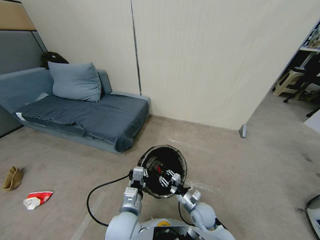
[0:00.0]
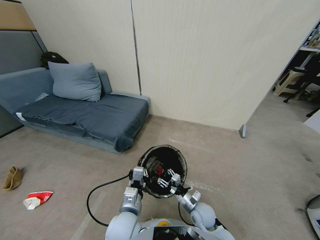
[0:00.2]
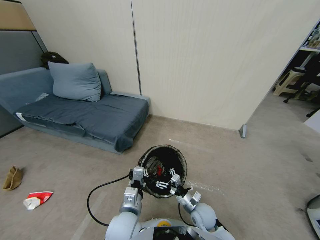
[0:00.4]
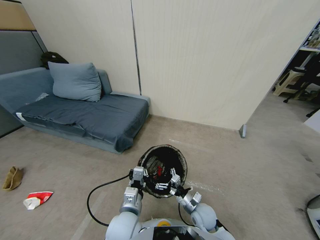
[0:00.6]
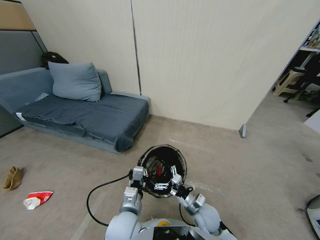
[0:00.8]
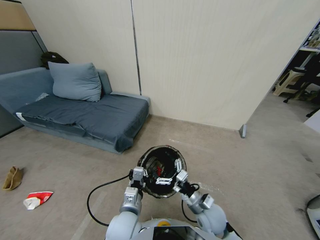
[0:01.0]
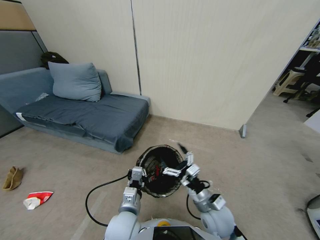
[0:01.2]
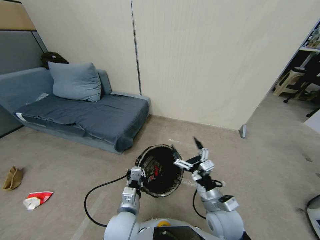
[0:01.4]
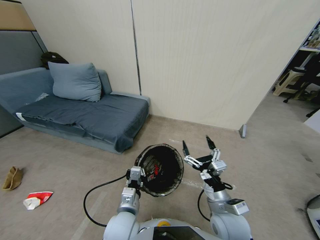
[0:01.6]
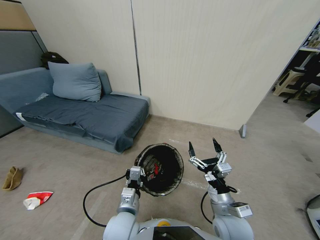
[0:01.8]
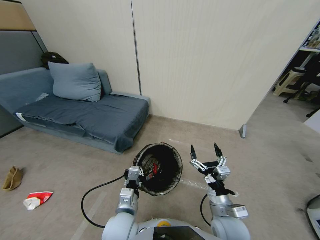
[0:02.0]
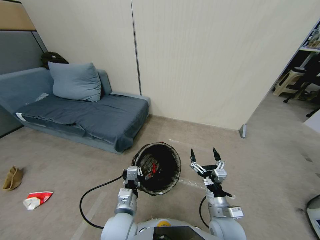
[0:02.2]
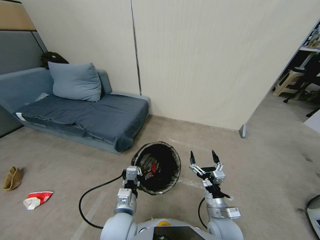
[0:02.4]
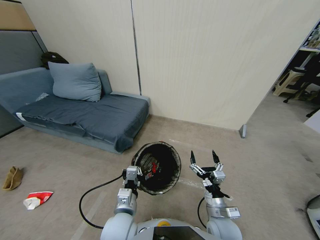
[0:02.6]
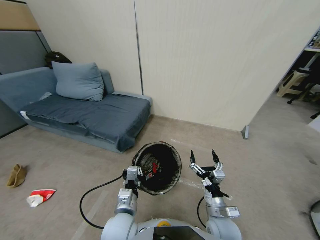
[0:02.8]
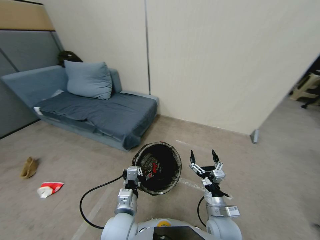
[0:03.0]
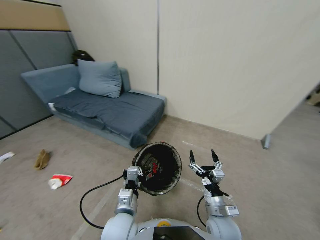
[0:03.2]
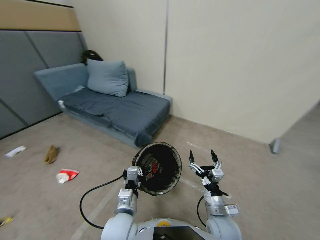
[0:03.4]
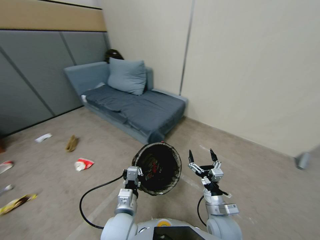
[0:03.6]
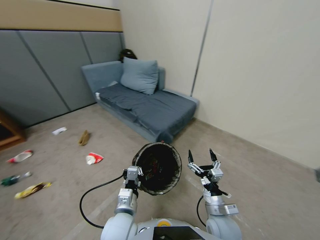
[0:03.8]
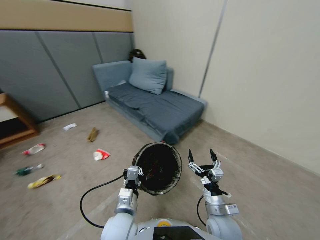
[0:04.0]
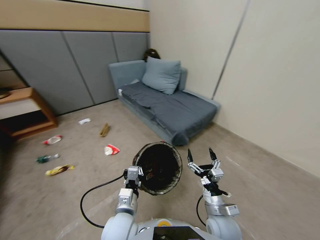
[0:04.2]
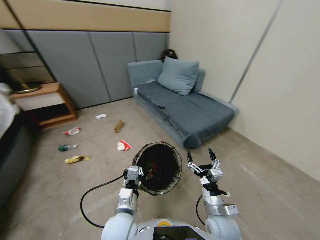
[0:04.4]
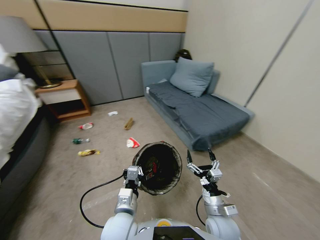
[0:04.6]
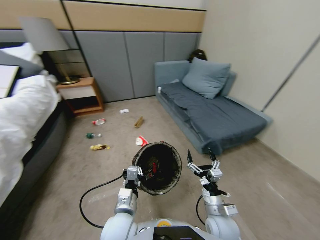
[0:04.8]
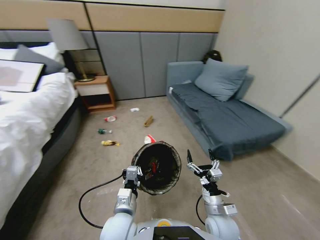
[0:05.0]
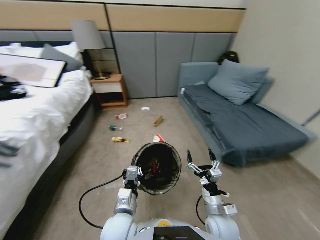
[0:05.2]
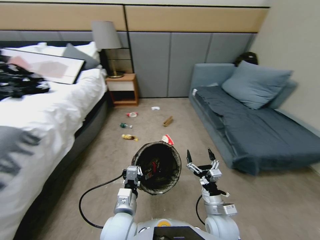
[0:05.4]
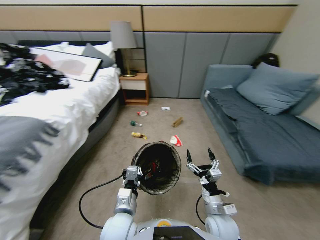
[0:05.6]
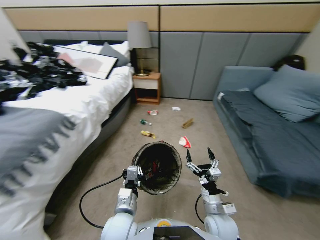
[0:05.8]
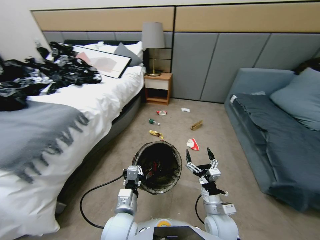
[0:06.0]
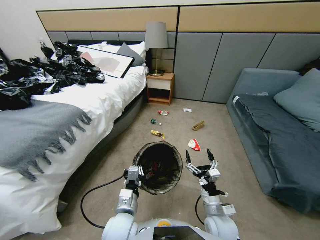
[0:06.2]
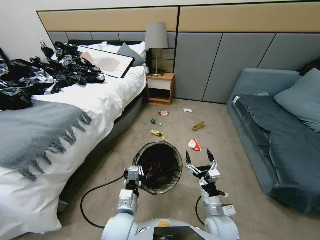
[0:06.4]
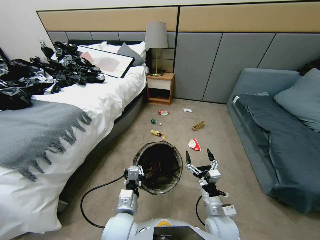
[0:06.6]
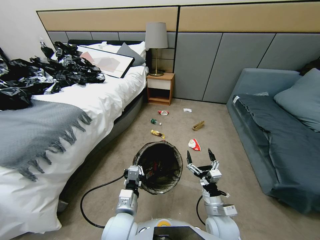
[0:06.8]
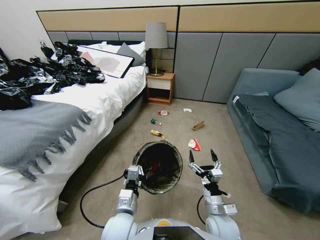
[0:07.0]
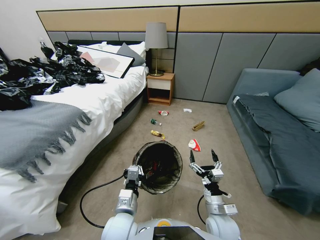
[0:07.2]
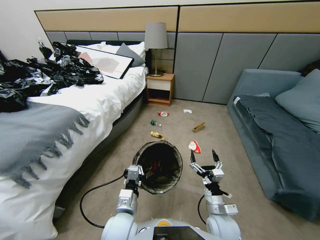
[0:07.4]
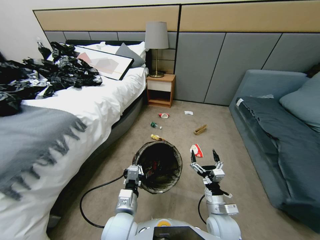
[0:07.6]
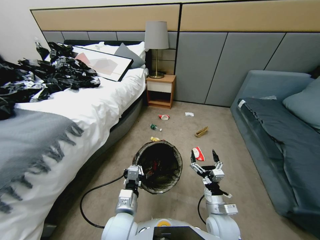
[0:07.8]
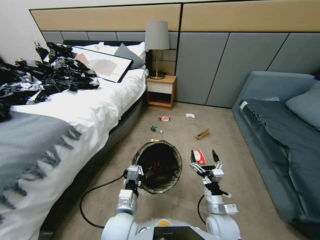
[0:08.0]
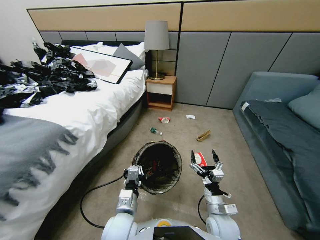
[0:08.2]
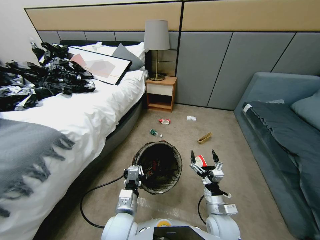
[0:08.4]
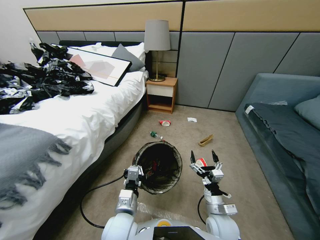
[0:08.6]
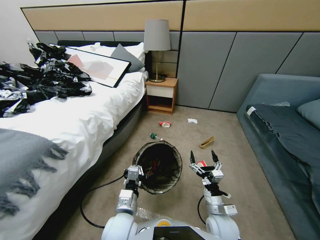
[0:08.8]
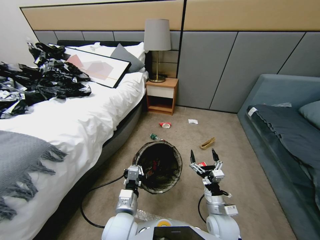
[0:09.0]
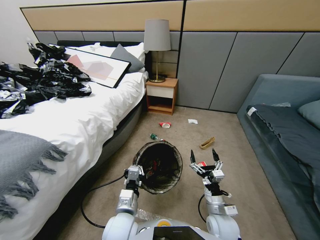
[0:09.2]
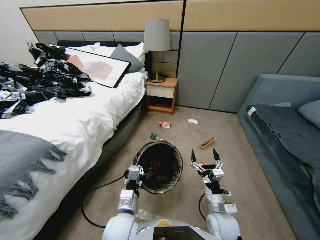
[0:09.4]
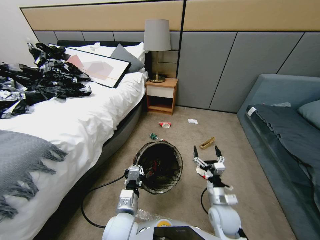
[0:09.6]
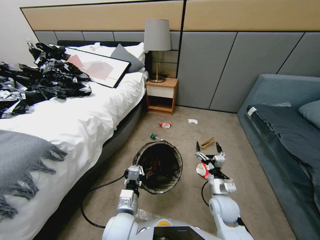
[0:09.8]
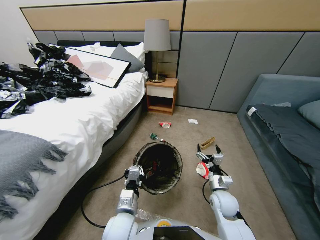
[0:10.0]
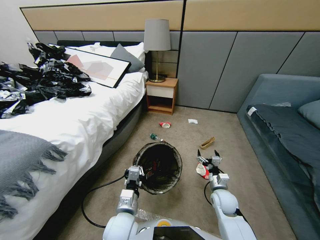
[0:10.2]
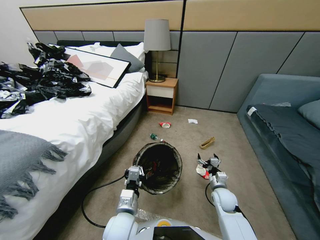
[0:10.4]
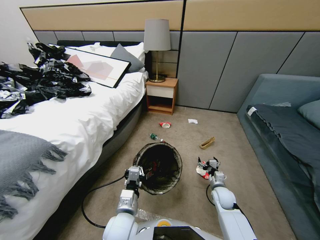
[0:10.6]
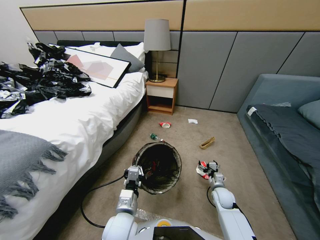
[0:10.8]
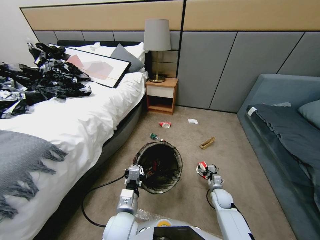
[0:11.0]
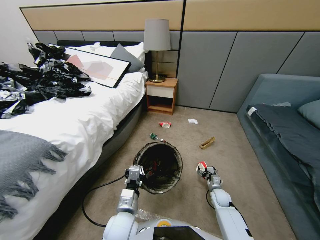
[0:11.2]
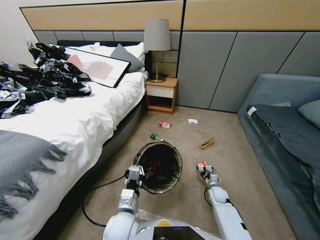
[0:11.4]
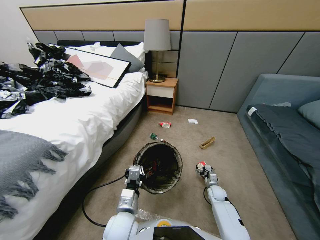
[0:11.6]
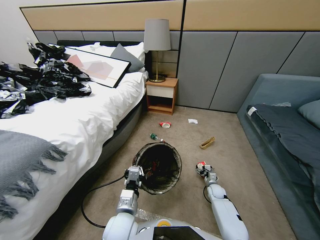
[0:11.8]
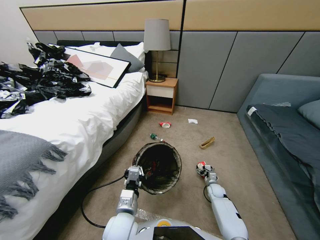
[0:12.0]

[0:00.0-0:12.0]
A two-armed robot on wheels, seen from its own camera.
Task of the whole recording: Pick up the trash bin, then pick up the garbage from the floor and place it into the trash bin.
0:00.0 to 0:01.6: The right gripper shifts approximately 15 cm upward, and opens up.
0:01.6 to 0:03.0: The right gripper shifts some 5 cm downward.
0:09.0 to 0:10.4: The right gripper shifts about 15 cm forward, to the right and downward.
0:10.4 to 0:12.0: The right gripper heads downward and forward, covering about 15 cm.

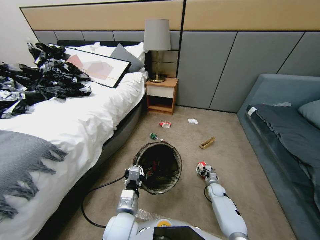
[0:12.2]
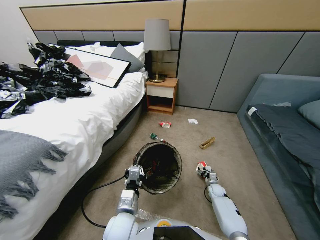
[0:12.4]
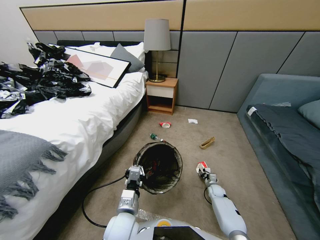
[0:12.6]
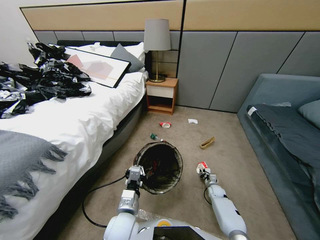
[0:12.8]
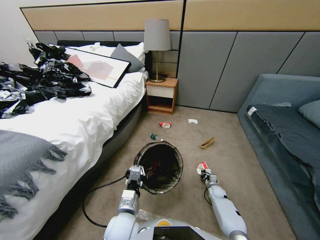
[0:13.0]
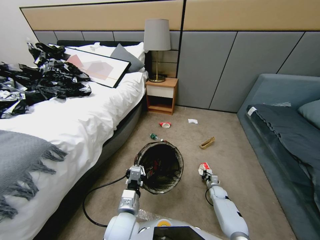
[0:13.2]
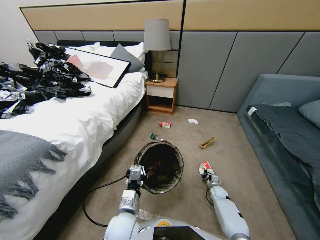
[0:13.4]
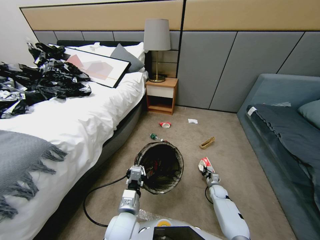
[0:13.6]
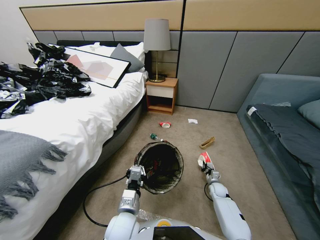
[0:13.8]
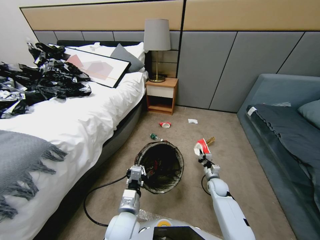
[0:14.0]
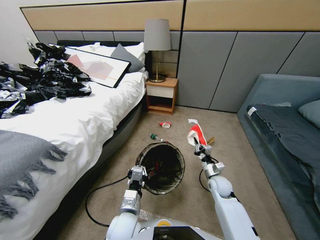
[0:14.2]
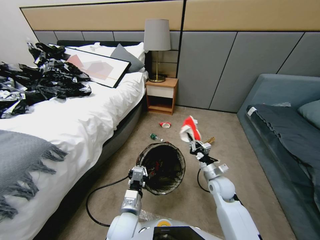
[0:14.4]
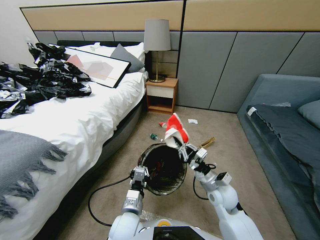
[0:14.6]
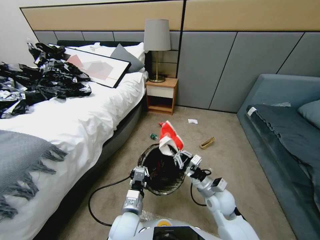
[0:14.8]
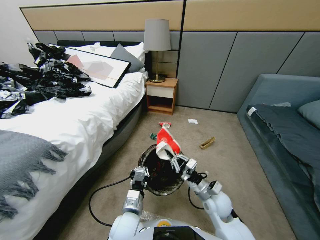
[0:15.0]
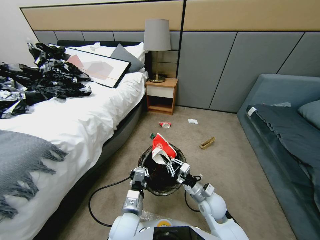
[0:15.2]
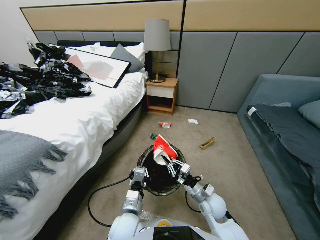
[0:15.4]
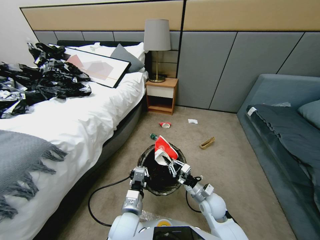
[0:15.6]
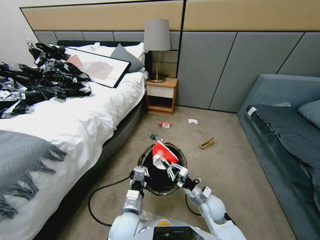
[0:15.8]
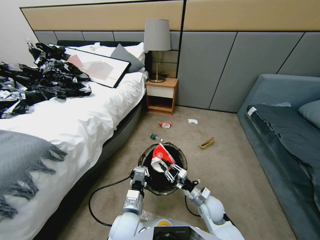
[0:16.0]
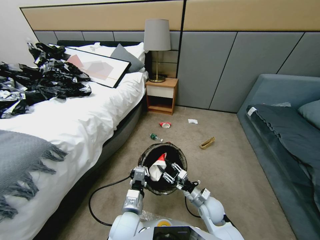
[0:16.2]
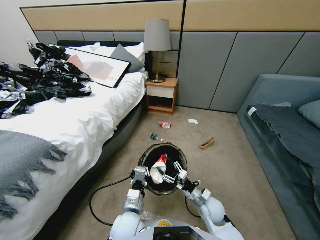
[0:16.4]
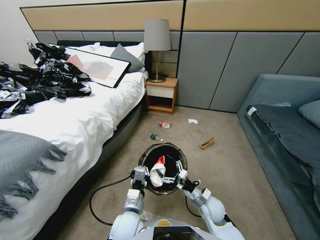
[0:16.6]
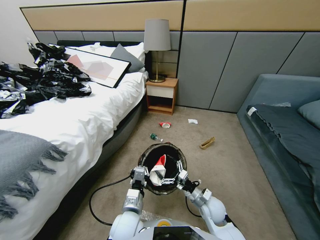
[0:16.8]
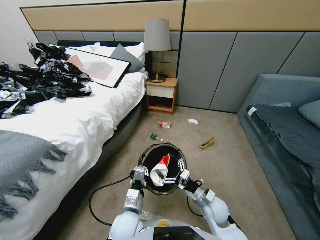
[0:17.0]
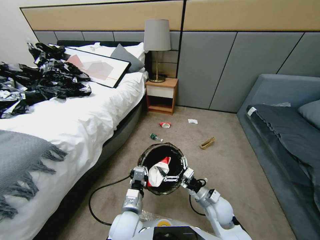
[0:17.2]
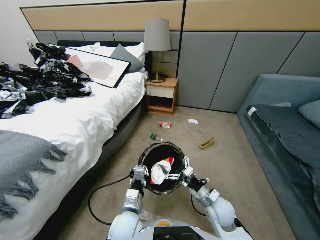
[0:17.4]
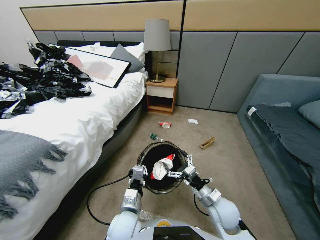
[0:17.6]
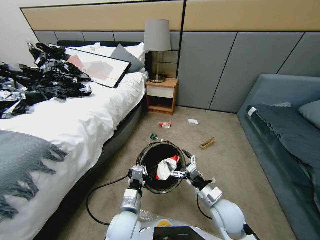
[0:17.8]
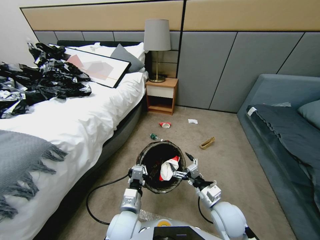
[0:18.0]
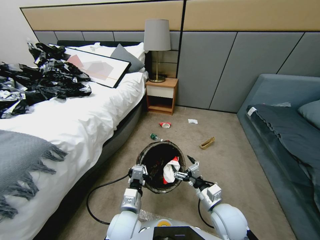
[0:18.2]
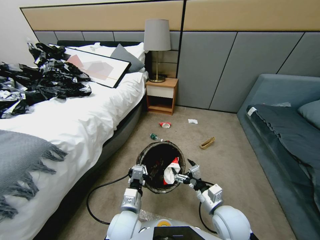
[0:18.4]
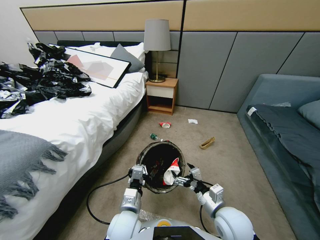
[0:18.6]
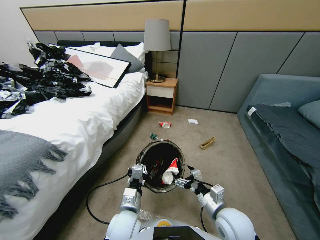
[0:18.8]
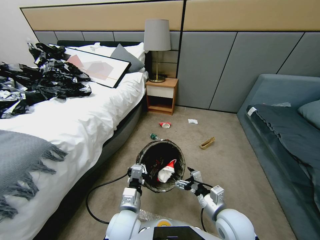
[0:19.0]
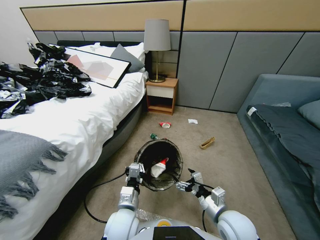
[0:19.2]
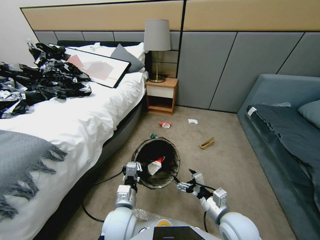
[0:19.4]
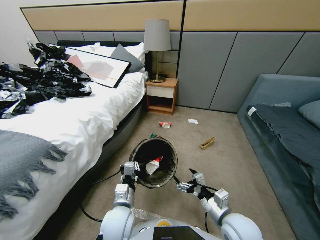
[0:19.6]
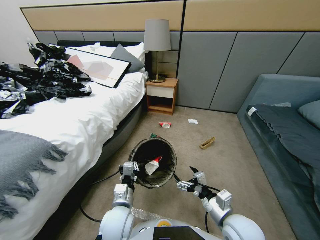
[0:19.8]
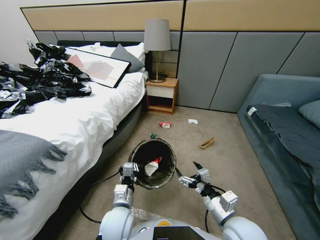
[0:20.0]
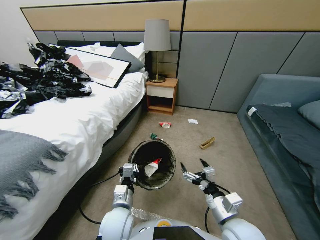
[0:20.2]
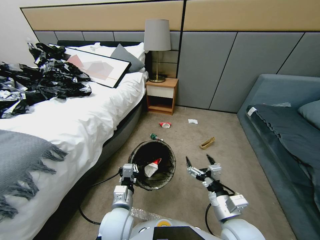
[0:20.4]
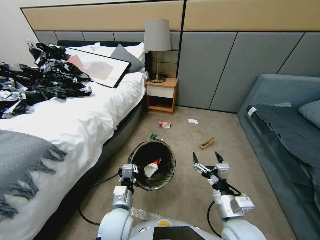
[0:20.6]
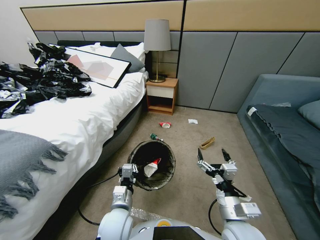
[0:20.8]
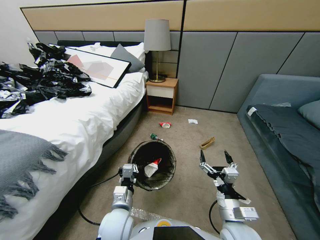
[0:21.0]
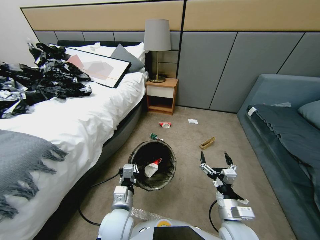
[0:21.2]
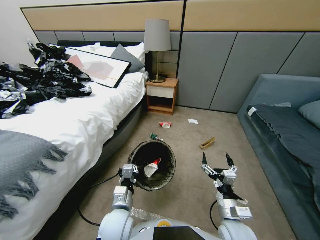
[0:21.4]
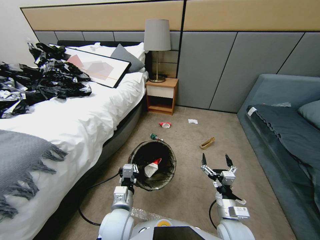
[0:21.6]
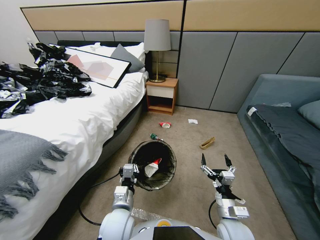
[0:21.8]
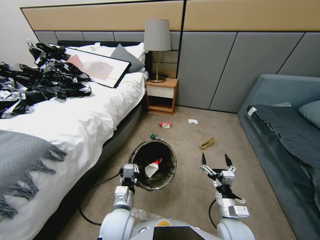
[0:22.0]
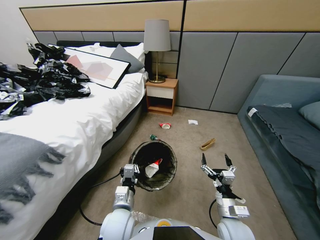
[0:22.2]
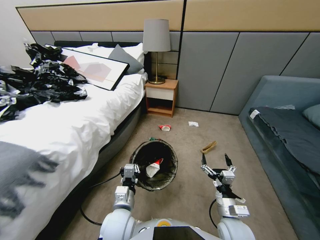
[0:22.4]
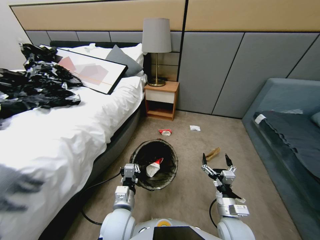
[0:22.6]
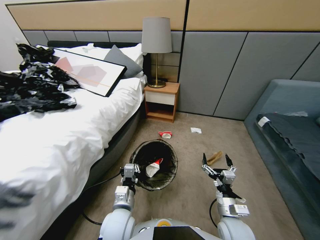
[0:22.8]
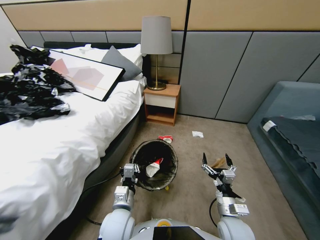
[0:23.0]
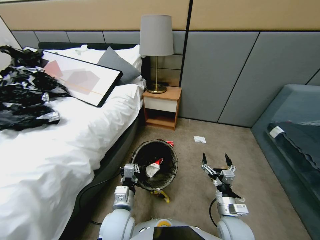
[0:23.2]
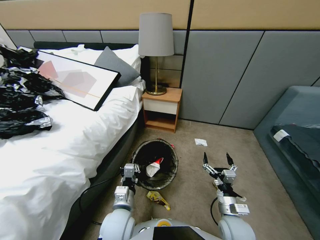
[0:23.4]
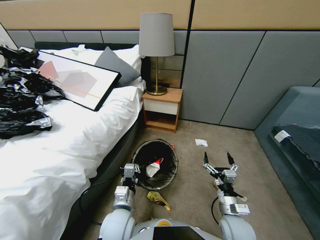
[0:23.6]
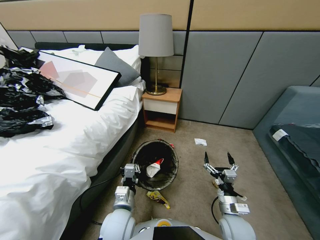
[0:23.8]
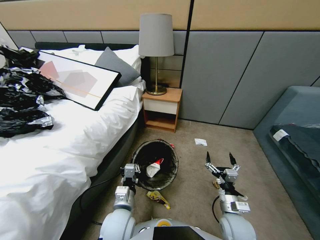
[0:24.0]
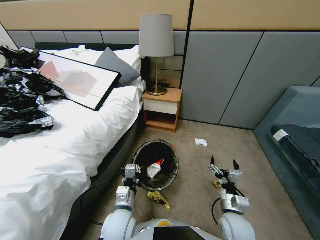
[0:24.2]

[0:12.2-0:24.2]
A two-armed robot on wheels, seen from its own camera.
Task of the whole recording: Pick up the trash bin, then pick up the garbage from the floor and place it into the trash bin.
0:12.2 to 0:13.8: The right gripper is displaced upward by approximately 10 cm, and closes up.
0:13.8 to 0:15.2: The right gripper is displaced upward, to the left and backward by about 20 cm.
0:15.2 to 0:16.6: The right gripper opens.
0:16.6 to 0:18.2: The right gripper is displaced upward and backward by approximately 10 cm.
0:18.2 to 0:19.8: The right gripper moves roughly 5 cm.
0:19.8 to 0:21.2: The right gripper shifts some 5 cm downward.
